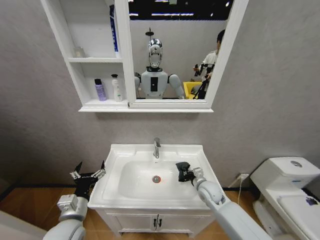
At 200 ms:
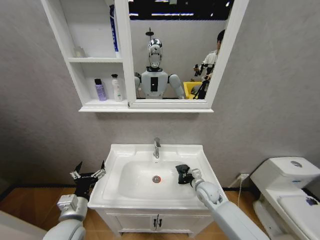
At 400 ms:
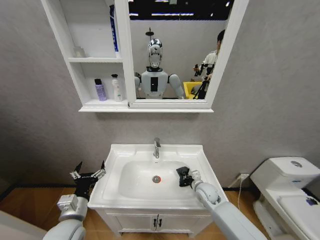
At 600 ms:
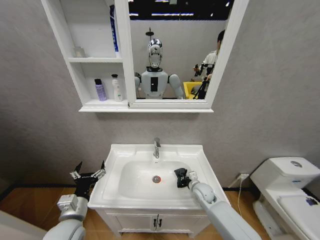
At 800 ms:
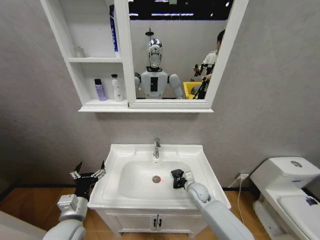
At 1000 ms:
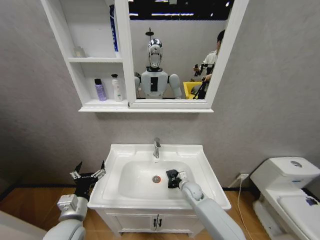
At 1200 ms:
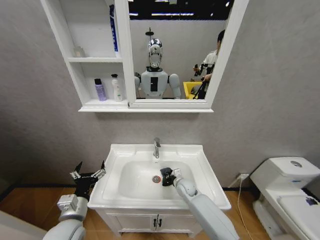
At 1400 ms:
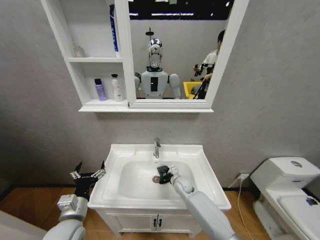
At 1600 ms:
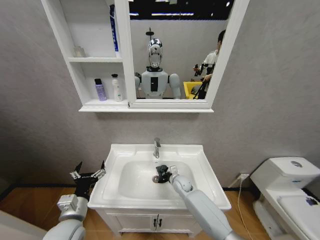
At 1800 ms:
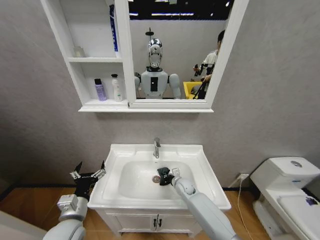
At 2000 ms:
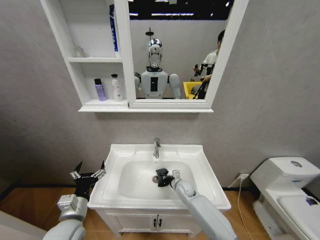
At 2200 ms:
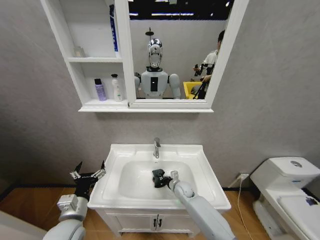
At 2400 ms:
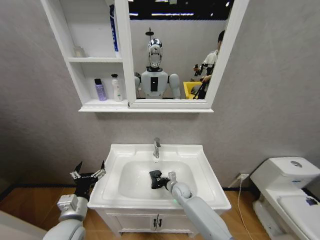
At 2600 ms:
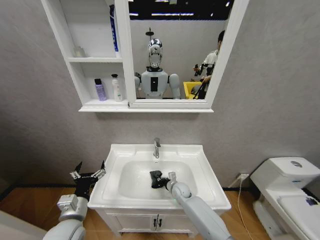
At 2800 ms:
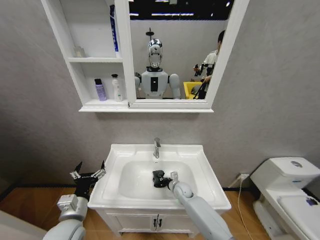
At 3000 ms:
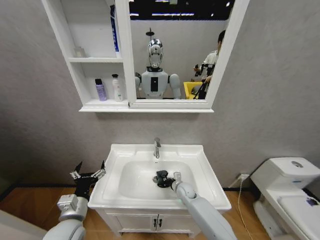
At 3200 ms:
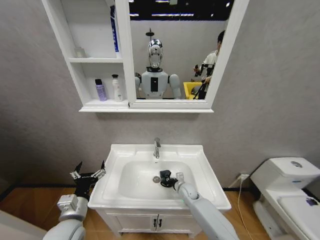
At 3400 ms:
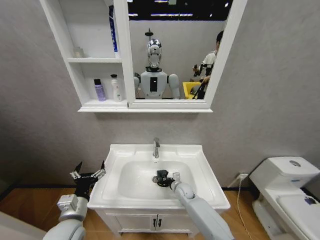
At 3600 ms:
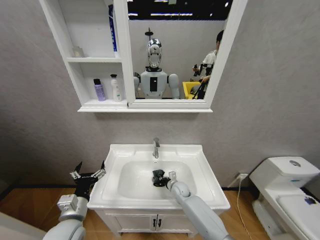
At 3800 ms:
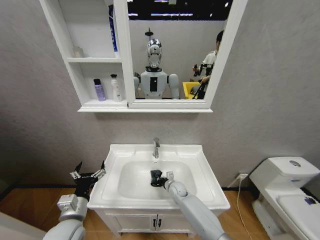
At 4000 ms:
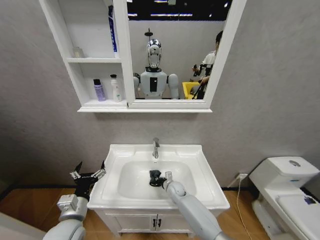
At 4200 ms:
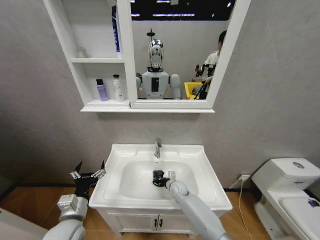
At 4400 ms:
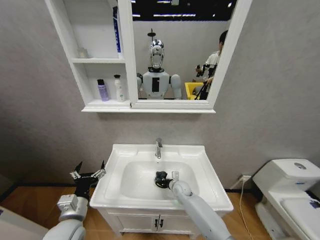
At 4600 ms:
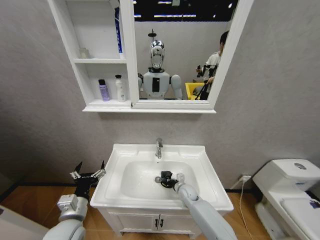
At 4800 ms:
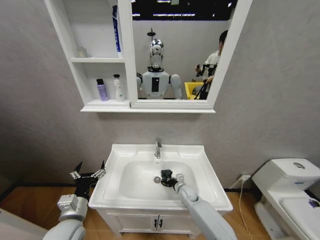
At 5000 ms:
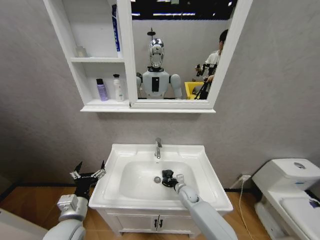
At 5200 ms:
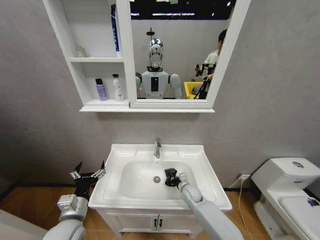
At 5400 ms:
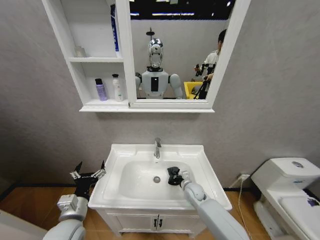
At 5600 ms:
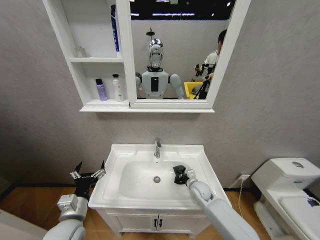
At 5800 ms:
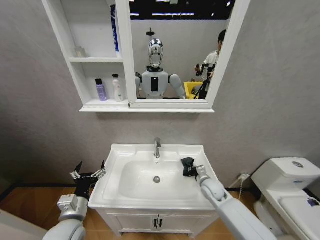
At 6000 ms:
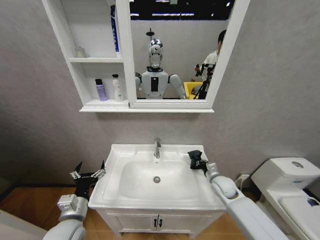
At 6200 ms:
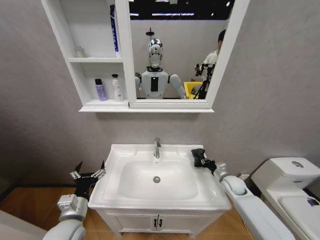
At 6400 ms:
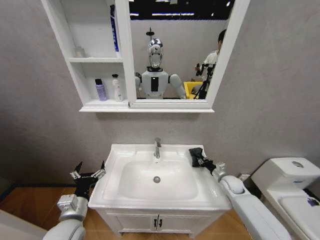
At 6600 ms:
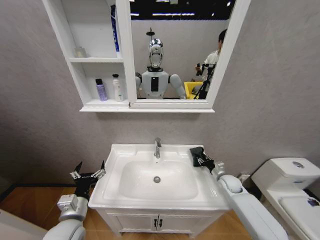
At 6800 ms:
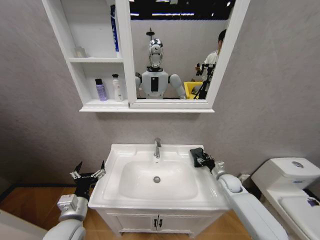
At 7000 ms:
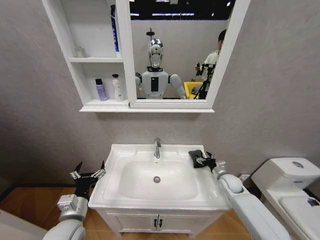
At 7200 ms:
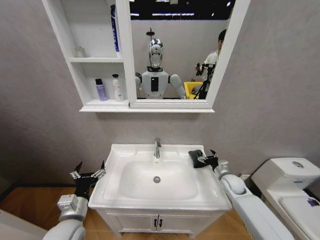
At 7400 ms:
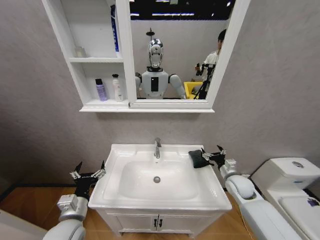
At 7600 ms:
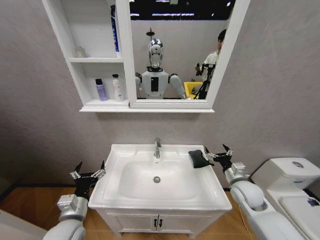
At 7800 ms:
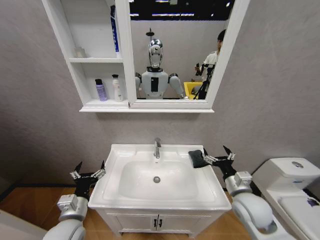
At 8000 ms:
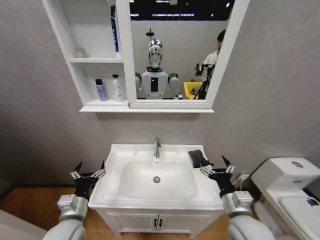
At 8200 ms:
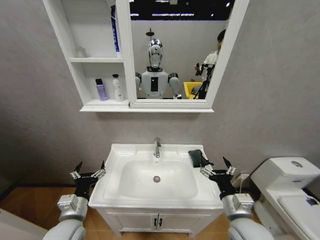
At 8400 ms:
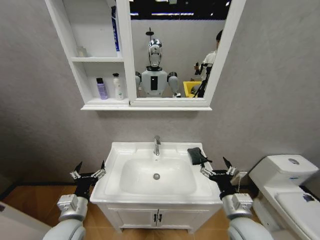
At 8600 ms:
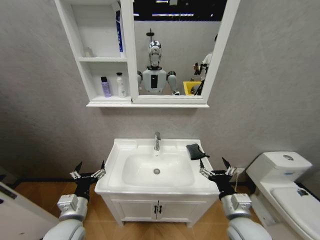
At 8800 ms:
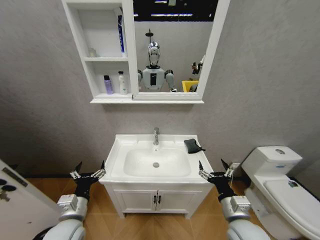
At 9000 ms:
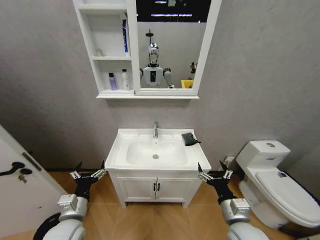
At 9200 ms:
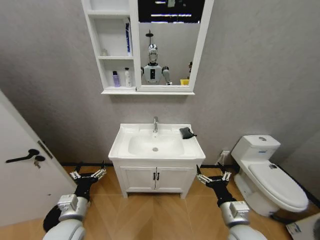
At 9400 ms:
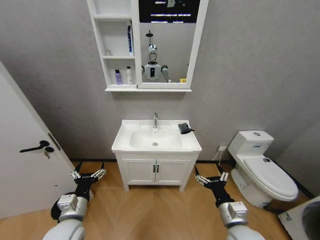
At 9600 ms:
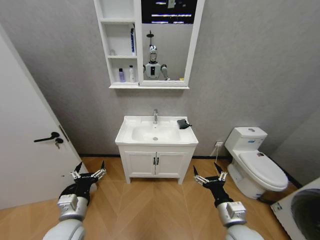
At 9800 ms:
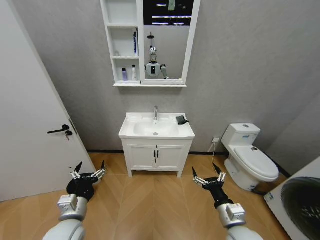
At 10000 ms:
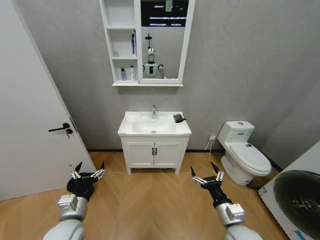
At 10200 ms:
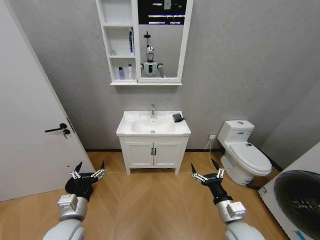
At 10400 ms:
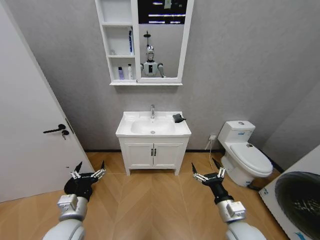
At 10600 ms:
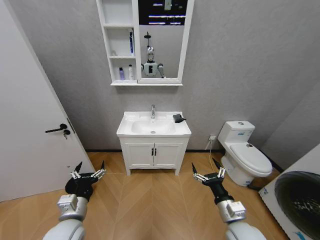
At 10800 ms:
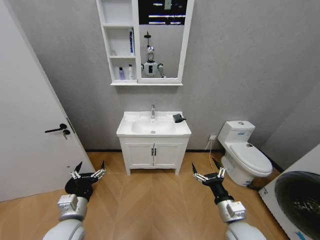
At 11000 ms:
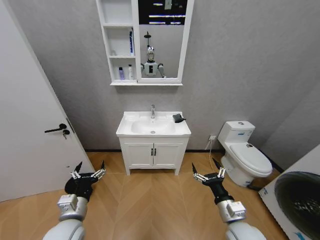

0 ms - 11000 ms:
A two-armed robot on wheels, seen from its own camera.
Task of the whole recording: Move facial cleanser and shampoo from washbasin to cabinet, then wipe washbasin with towel.
0 ms - 1600 ms: The right gripper goes roughly 15 cm to the left, forward and downward.
1600 ms - 3200 ms: The right gripper changes place by roughly 5 cm.
4800 ms - 6200 ms: The right gripper shifts roughly 25 cm to the right and upward.
6200 ms - 7800 ms: The right gripper goes approximately 20 cm backward, upward and to the left, and opens.
7800 ms - 9400 ms: The right gripper shifts approximately 5 cm backward.
